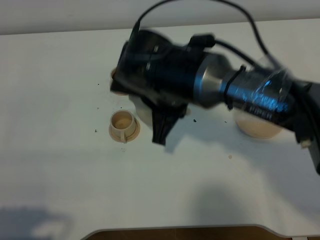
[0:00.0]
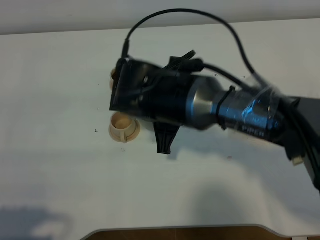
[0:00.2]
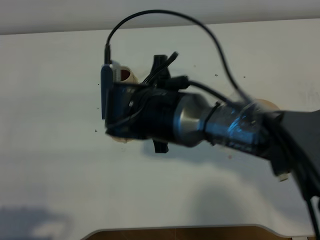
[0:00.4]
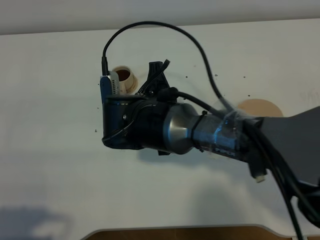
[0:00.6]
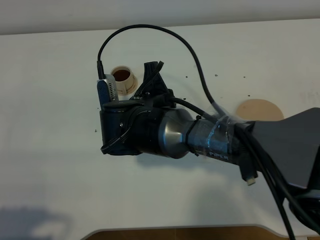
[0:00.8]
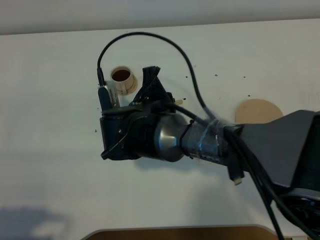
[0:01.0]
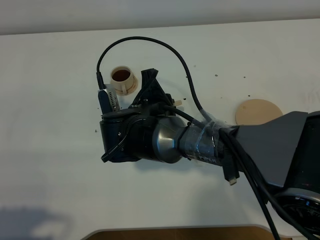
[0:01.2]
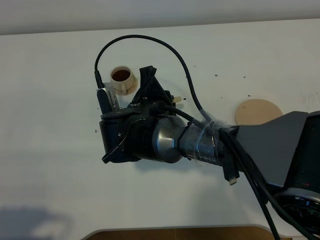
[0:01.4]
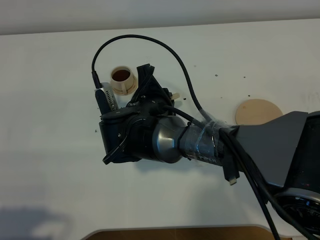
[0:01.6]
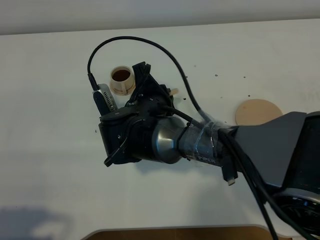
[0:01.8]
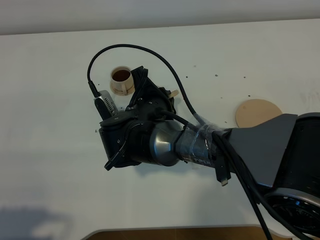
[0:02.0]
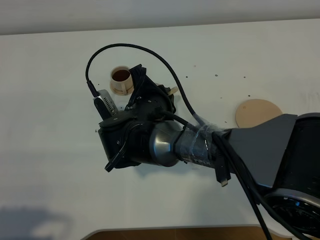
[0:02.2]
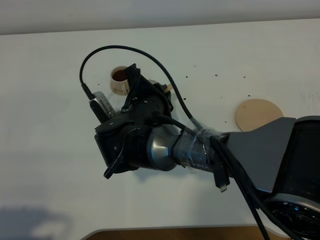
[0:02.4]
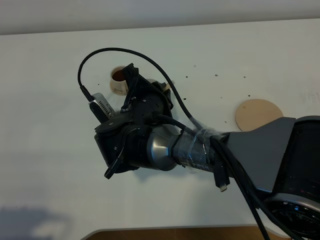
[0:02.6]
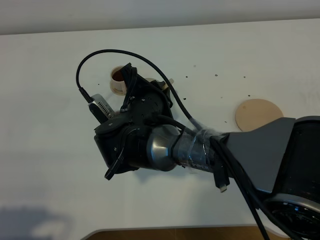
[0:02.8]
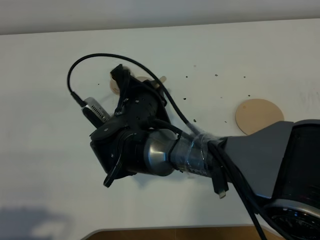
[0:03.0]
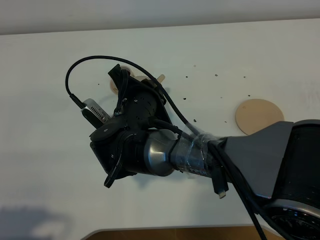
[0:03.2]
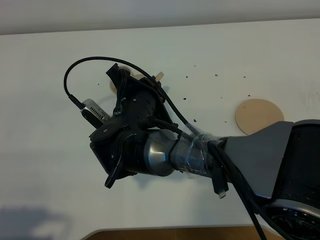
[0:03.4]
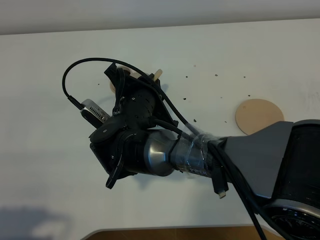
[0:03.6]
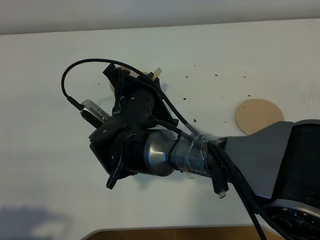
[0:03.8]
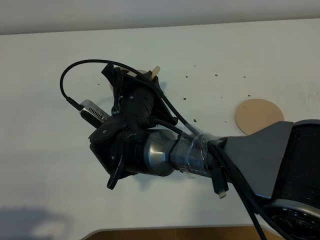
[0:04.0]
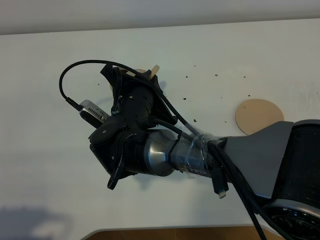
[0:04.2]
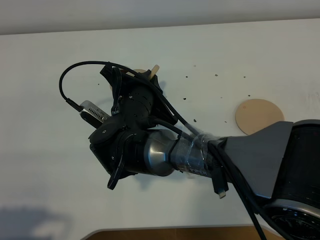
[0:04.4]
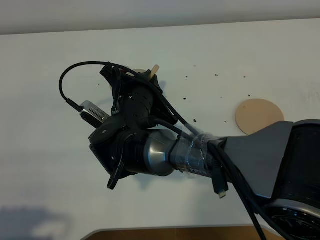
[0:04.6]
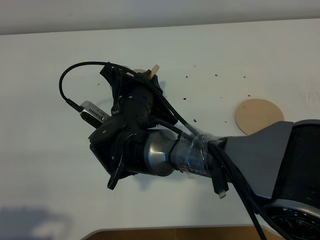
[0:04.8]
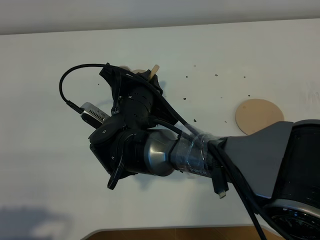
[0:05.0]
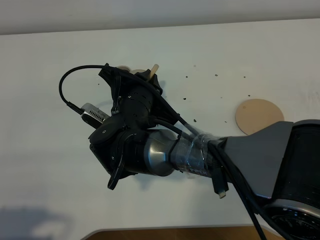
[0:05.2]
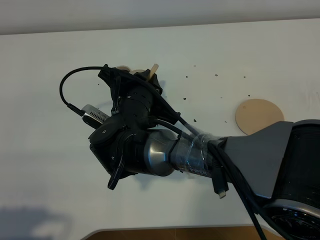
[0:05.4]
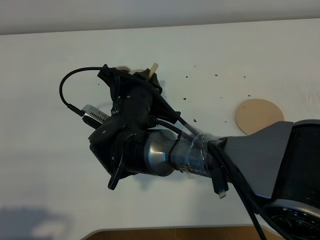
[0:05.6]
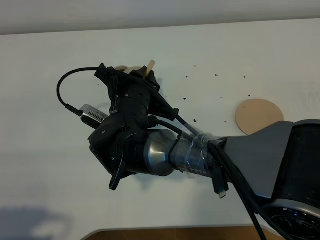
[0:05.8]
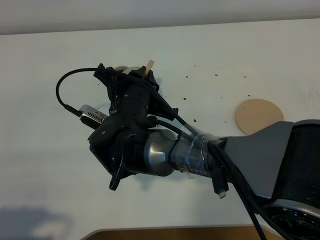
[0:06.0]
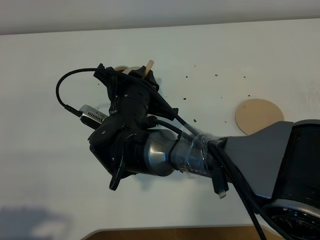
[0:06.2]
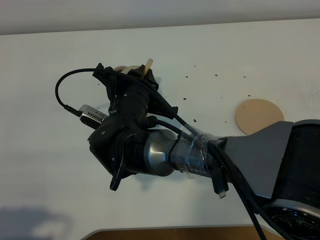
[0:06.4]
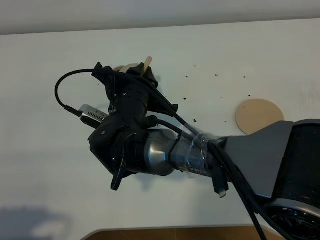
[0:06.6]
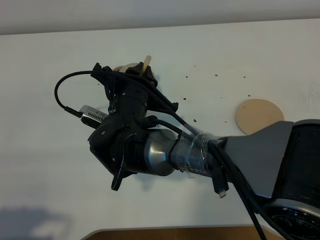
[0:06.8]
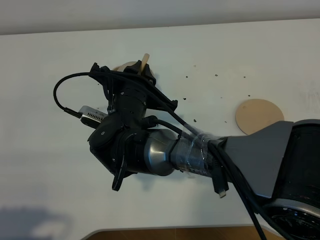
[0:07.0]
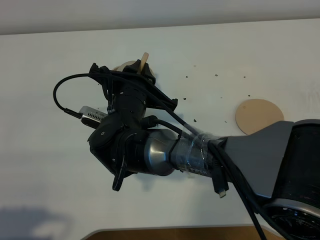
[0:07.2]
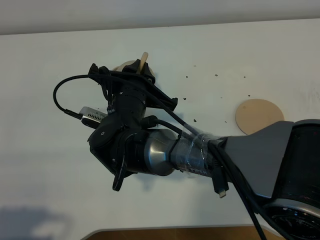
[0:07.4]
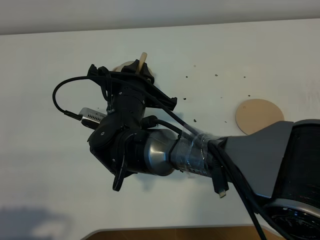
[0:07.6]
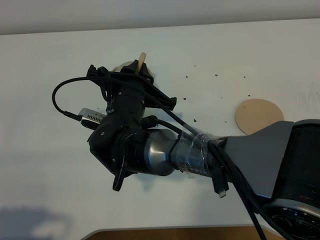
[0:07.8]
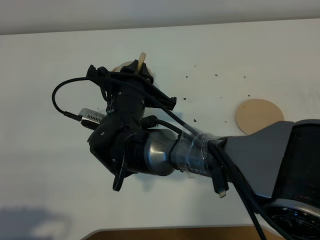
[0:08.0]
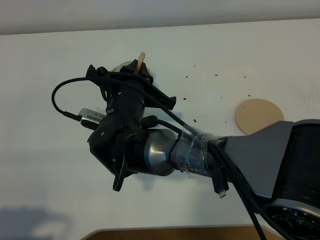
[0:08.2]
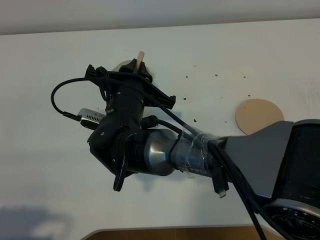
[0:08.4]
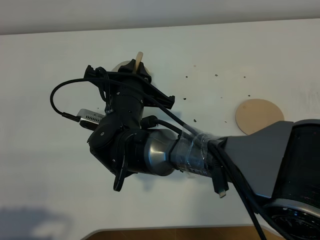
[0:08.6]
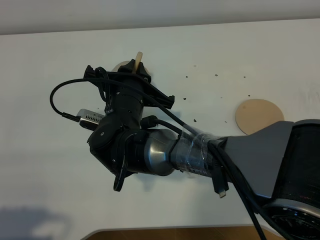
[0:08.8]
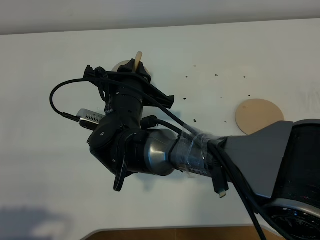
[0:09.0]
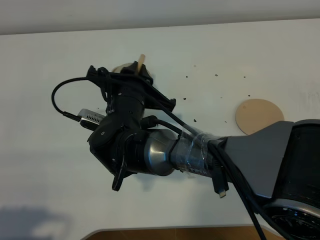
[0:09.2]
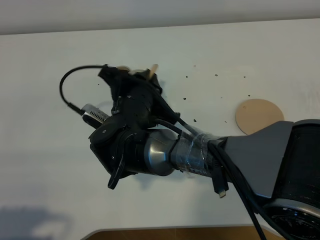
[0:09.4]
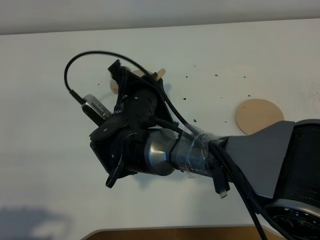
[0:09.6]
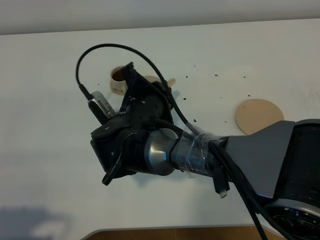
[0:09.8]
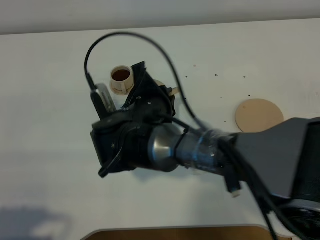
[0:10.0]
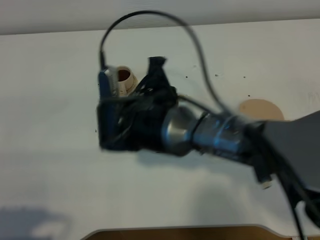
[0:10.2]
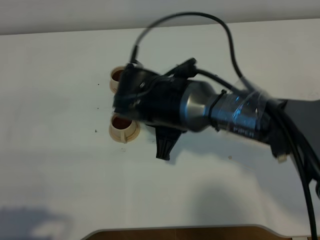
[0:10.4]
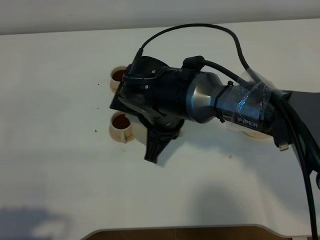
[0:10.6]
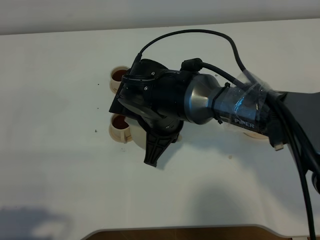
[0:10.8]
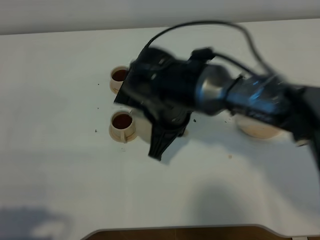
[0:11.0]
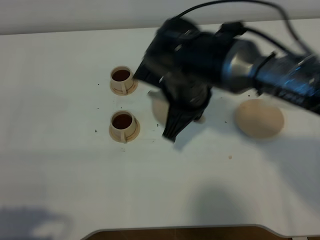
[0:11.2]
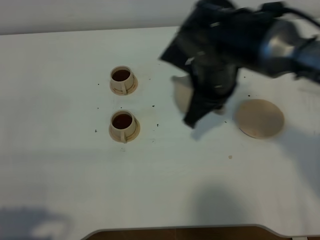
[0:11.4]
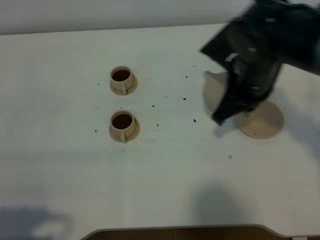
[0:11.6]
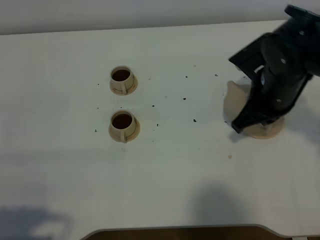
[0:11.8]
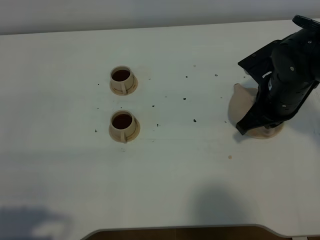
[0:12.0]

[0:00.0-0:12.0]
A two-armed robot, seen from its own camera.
Task of the whole recording: grasp the brown teapot and pour the tea into the two brown teacups one by one, put the brown teapot back in its original place.
Step, 0:00.0 to 0:10.0: Pour tea into the teacup with the right gripper.
0:00.0 to 0:01.6: The right gripper heads downward, covering roughly 5 cm.
0:03.0 to 0:06.0: There are only small adjustments of the grippers.
0:06.0 to 0:07.6: The grippers stay close to where they were, moving slightly.
0:07.6 to 0:09.0: The two grippers keep their place.
0:09.0 to 0:10.4: The right gripper heads to the right, covering some 5 cm.
0:10.4 to 0:12.0: The right gripper moves to the right, roughly 20 cm.

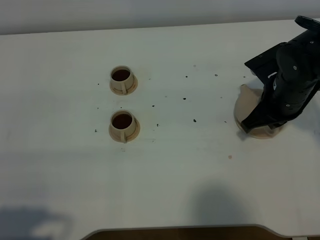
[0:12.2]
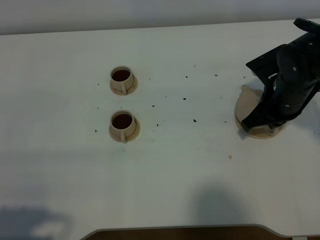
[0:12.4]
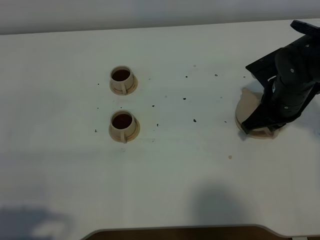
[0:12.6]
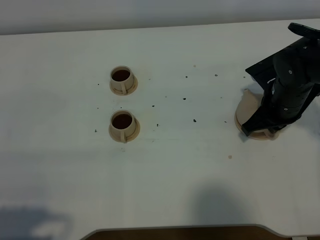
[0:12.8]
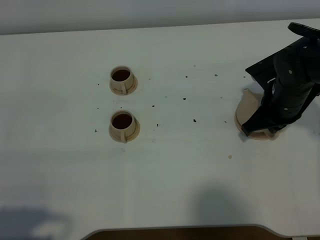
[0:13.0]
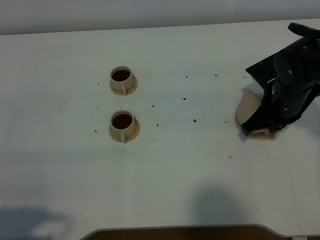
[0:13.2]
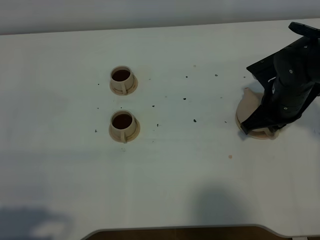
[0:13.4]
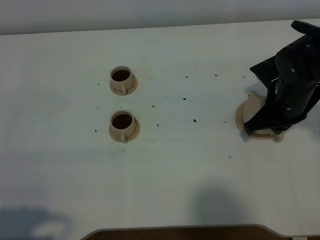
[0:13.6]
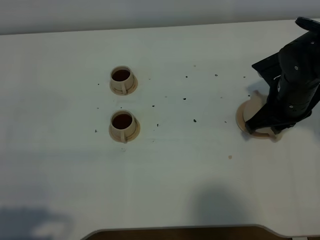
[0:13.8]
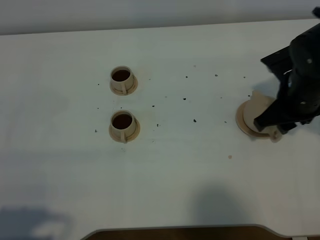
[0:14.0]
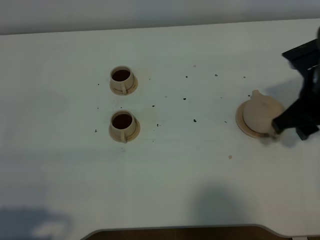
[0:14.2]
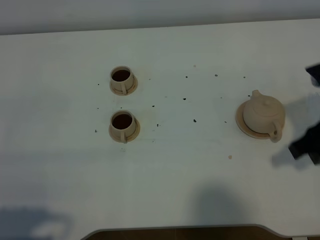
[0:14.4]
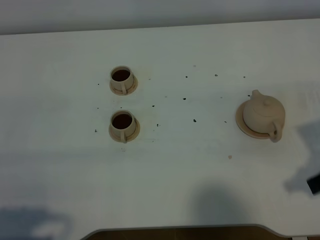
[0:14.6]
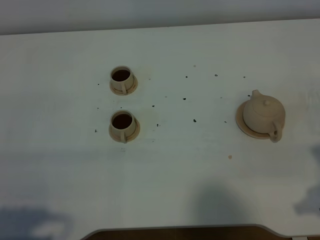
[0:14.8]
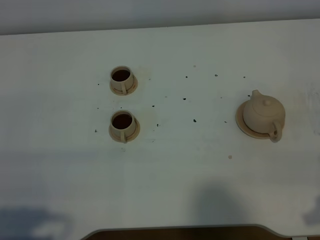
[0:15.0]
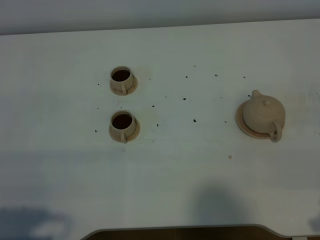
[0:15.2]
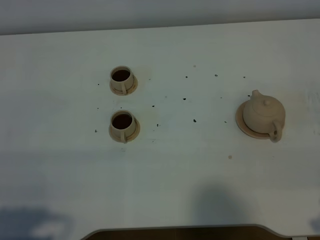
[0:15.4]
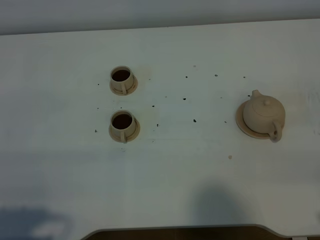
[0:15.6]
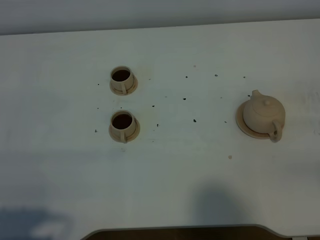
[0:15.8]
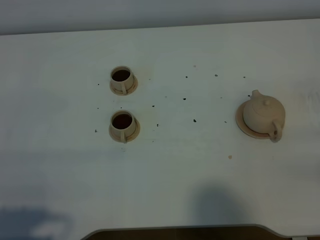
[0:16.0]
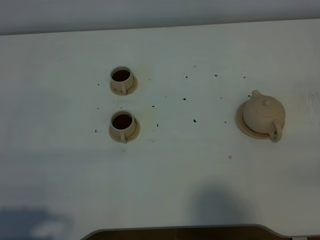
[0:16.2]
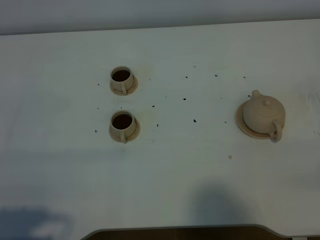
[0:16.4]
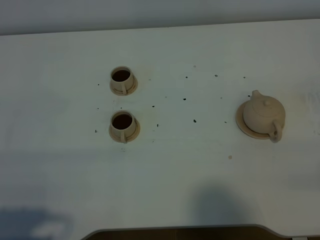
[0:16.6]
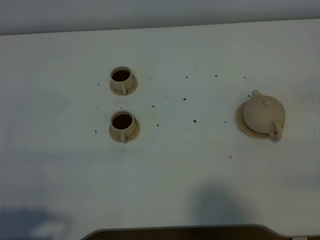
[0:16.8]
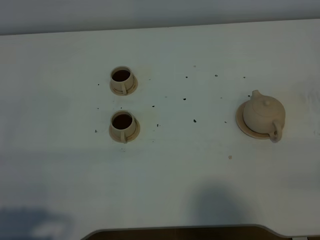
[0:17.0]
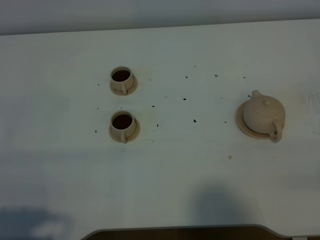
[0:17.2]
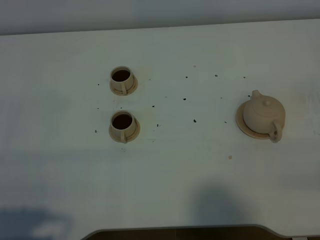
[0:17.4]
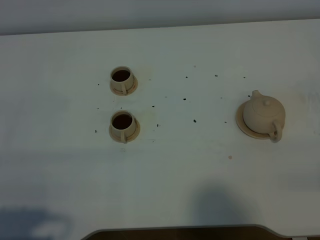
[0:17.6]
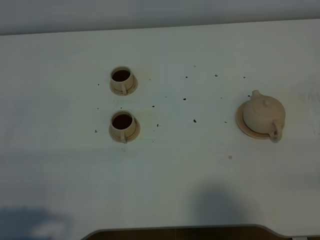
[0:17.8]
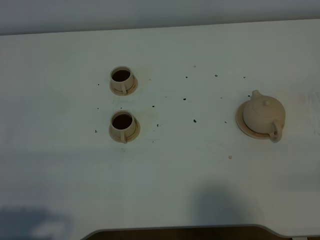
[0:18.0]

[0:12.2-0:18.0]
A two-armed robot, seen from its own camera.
Task of the whole recording: grasp the brown teapot and pour the tea into the two brown teacups one by one, put the brown teapot back in its original place.
0:12.2 to 0:13.6: The grippers move only a little.
0:13.6 to 0:15.0: The right gripper shifts about 25 cm backward, and opens.
0:16.6 to 0:18.0: The two grippers keep their place.

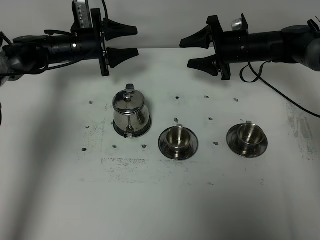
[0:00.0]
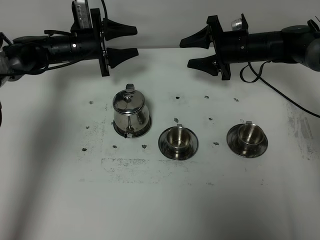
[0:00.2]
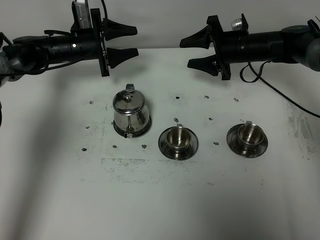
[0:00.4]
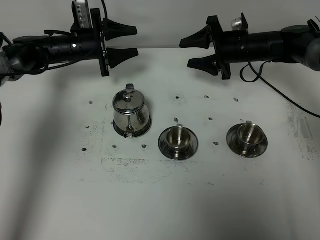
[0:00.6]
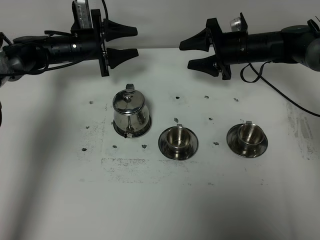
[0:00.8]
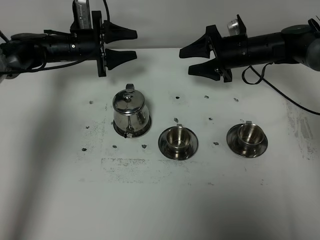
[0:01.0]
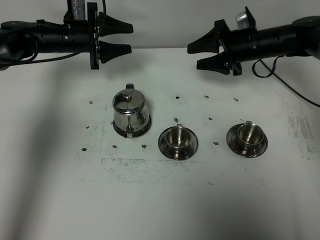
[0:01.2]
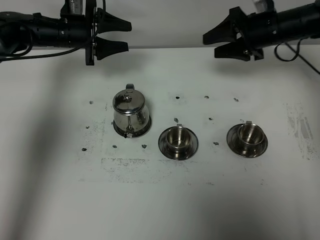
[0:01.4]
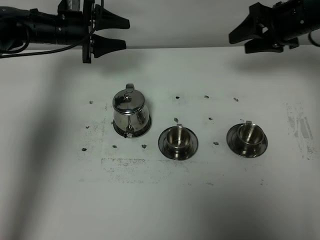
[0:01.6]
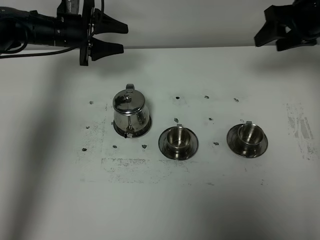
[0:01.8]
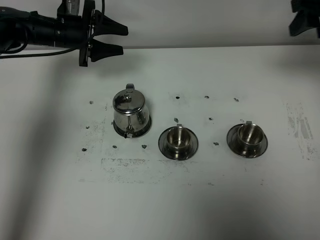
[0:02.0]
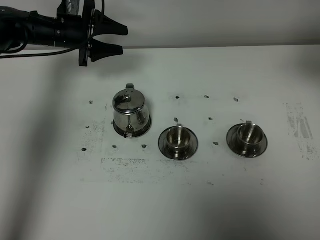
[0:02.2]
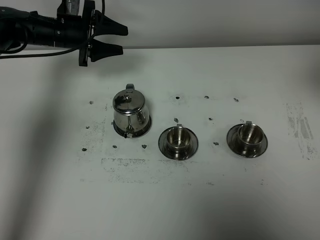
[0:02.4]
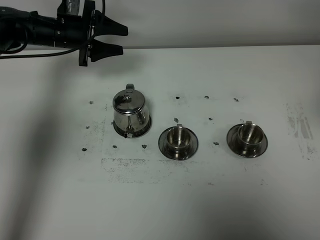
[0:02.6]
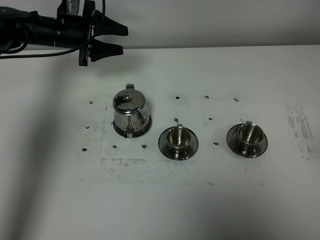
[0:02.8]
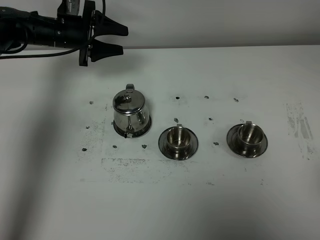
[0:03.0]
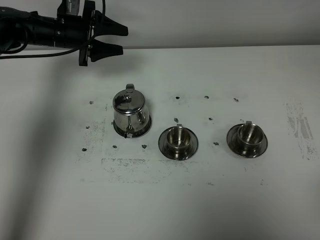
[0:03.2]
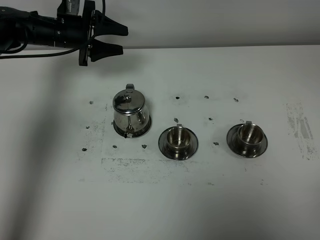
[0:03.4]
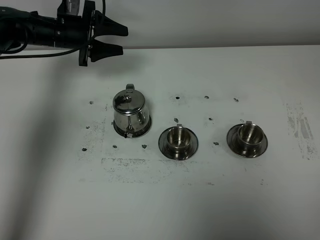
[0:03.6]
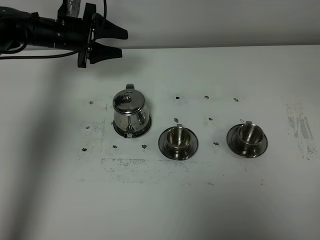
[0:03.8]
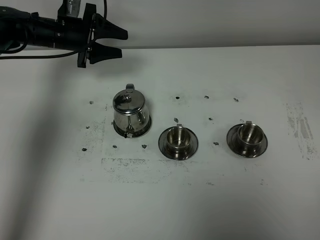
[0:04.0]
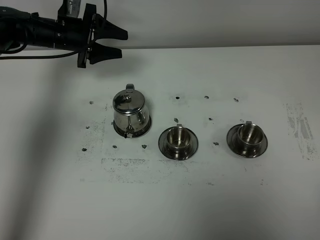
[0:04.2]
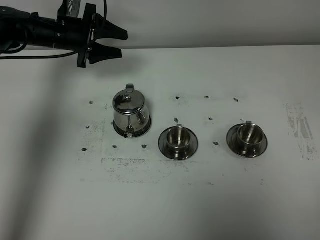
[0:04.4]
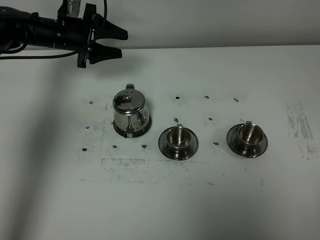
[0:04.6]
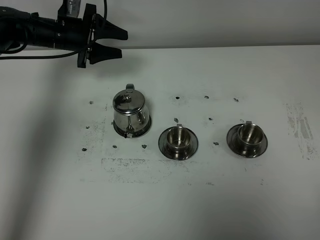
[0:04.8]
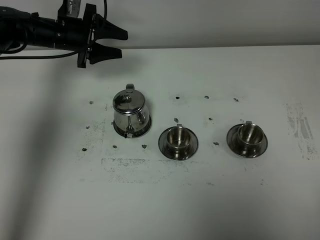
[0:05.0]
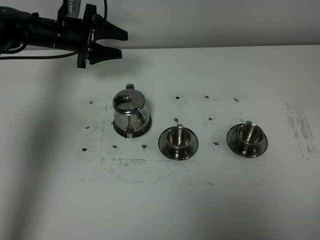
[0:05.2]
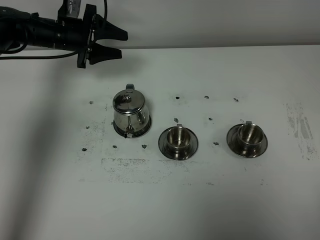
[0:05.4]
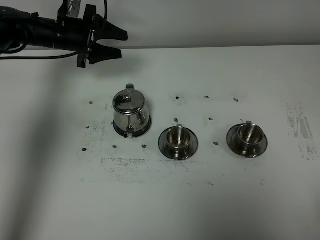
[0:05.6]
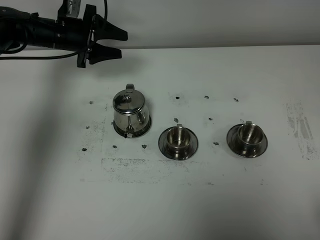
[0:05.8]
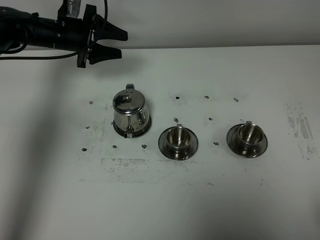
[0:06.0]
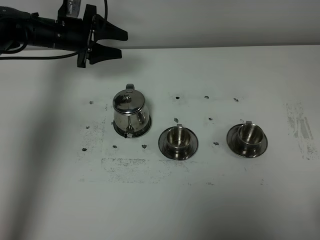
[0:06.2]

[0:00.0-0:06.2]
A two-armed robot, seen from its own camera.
Task of the whole recording: grasp the stainless steel teapot and pour the tea into the two stainless steel teacups one by one, put the stainless steel teapot back in its original place.
0:00.0 to 0:01.6: The right gripper goes about 15 cm upward and to the right; the left gripper is displaced upward by roughly 5 cm.
0:01.6 to 0:03.2: The right gripper shifts approximately 40 cm backward, and closes.
